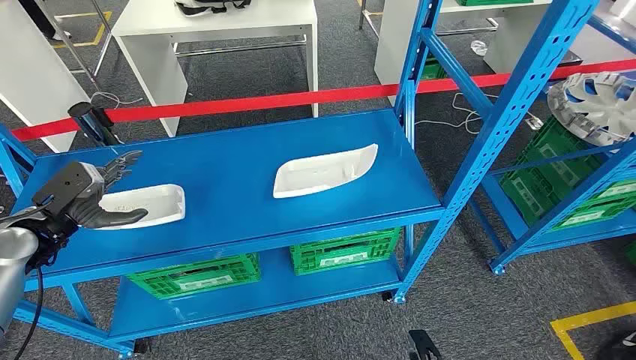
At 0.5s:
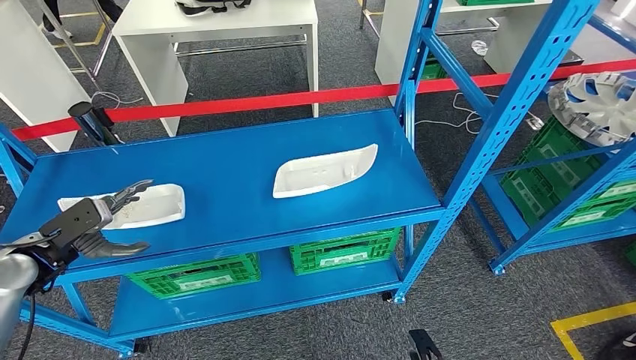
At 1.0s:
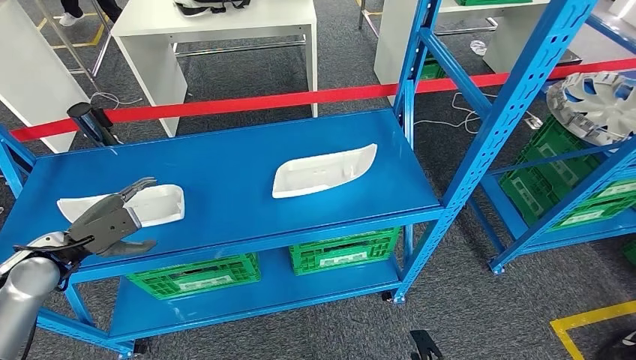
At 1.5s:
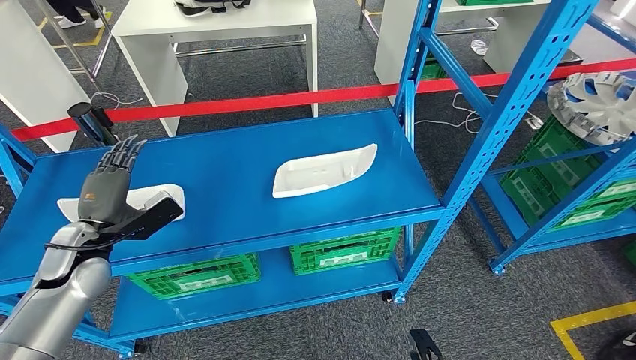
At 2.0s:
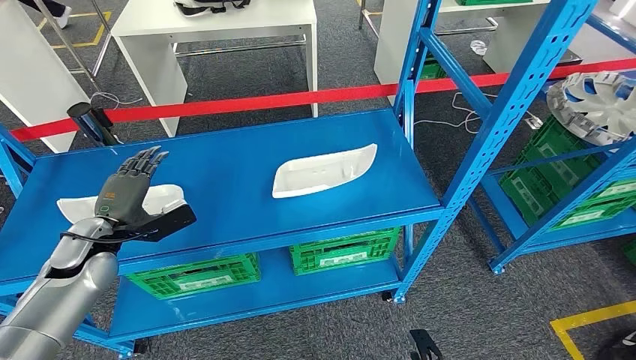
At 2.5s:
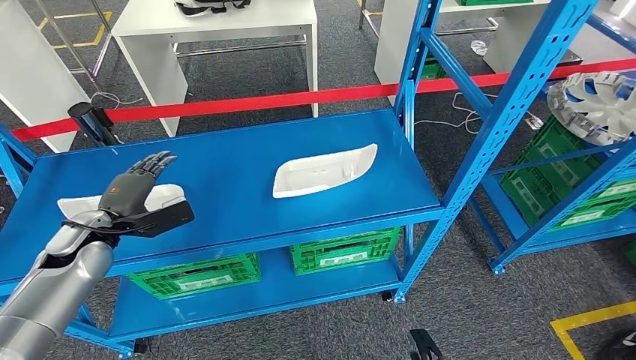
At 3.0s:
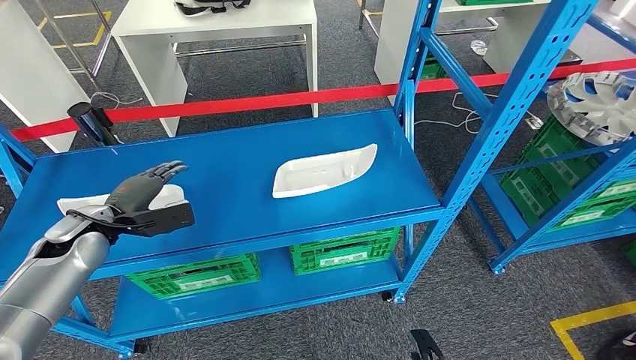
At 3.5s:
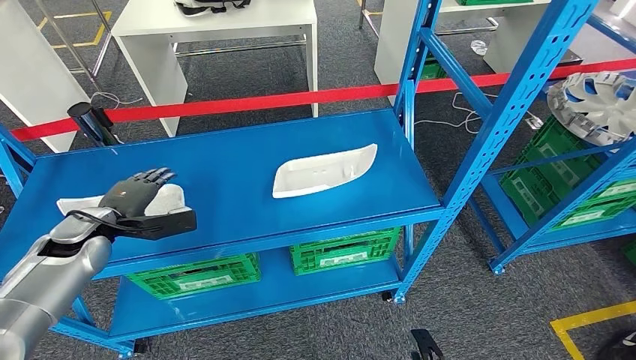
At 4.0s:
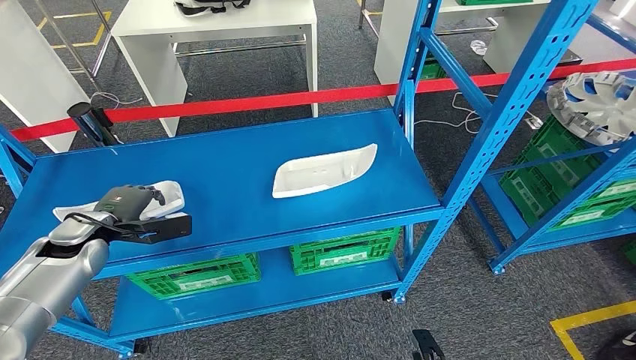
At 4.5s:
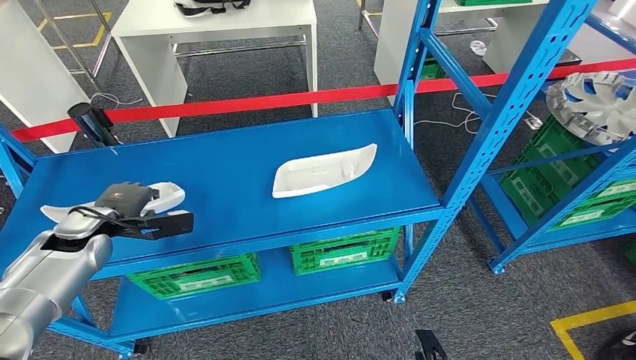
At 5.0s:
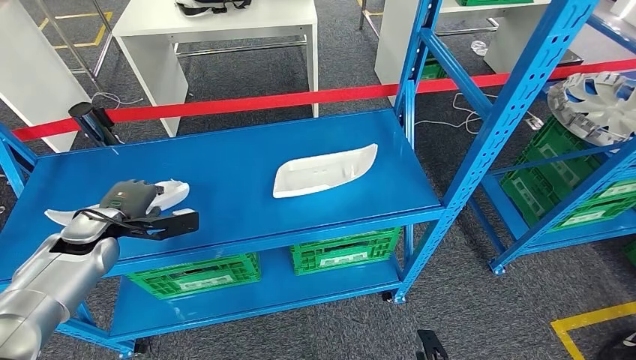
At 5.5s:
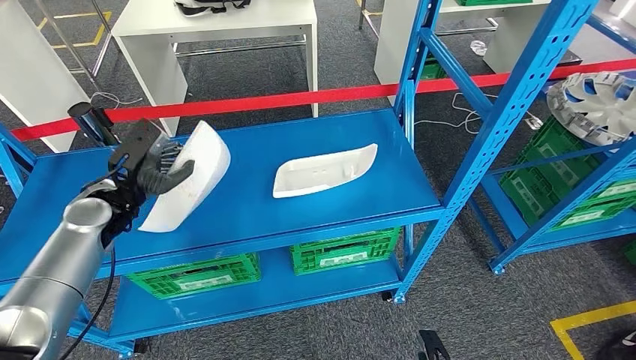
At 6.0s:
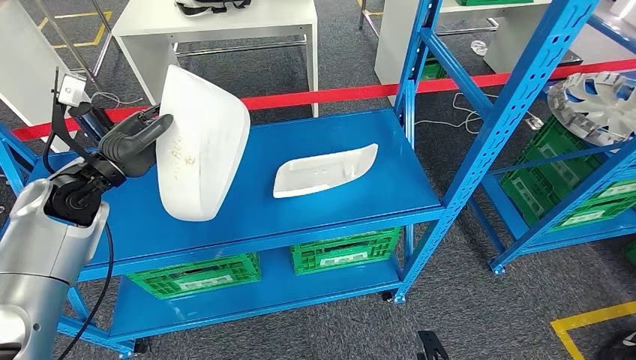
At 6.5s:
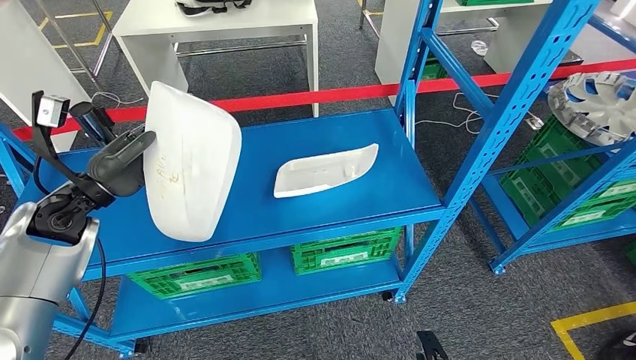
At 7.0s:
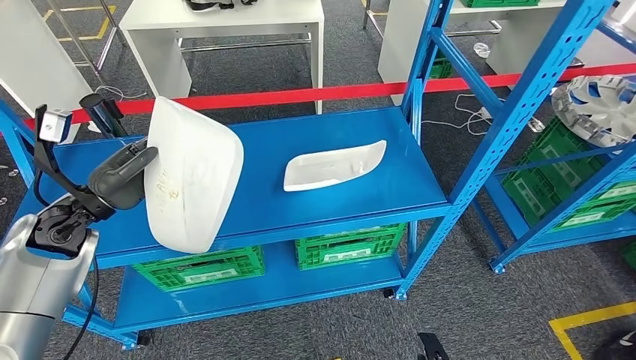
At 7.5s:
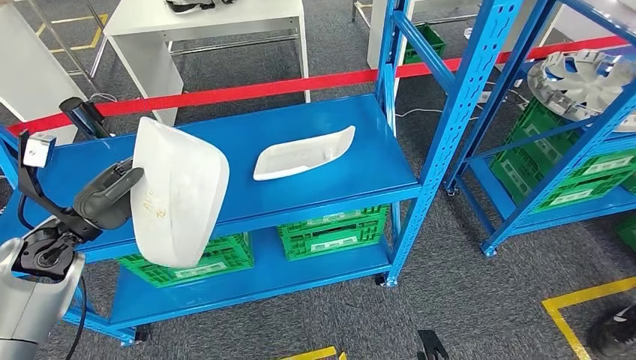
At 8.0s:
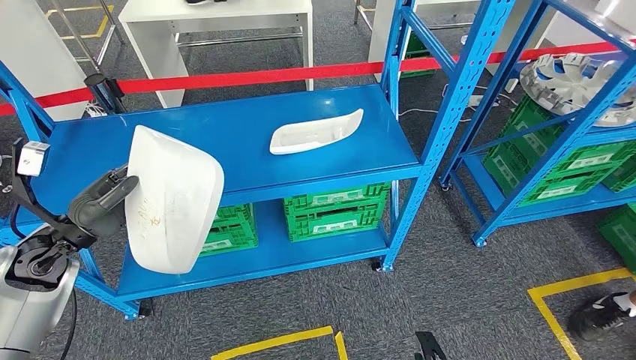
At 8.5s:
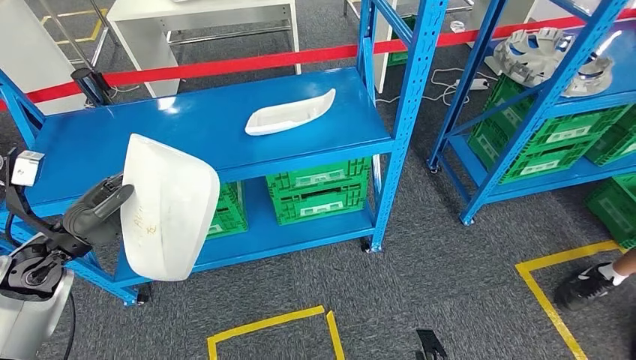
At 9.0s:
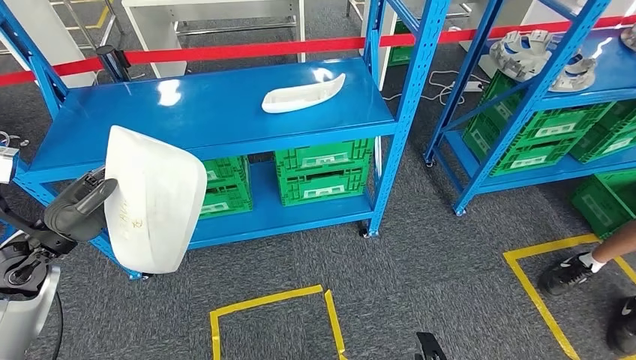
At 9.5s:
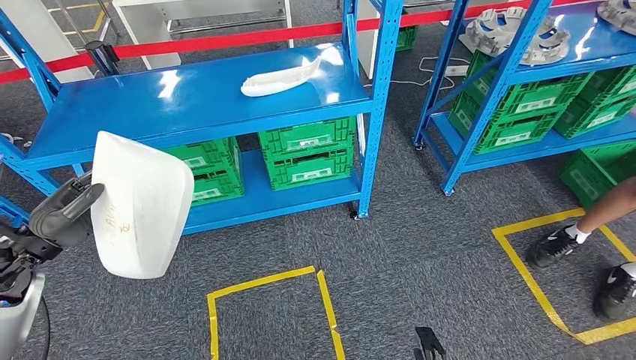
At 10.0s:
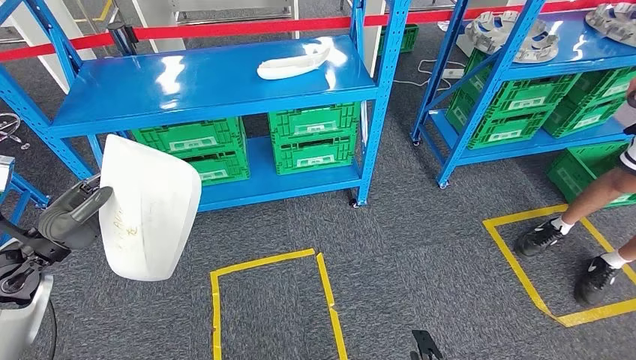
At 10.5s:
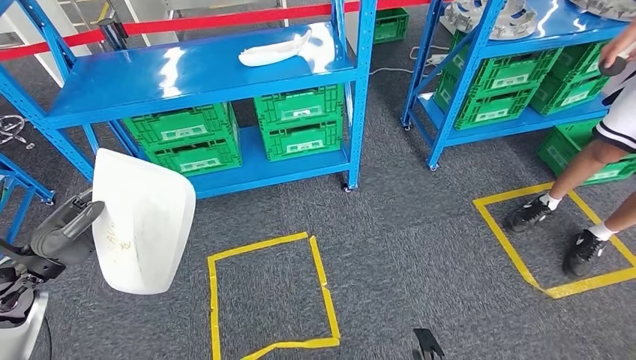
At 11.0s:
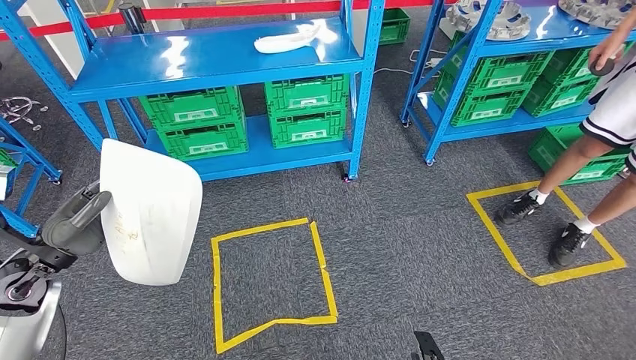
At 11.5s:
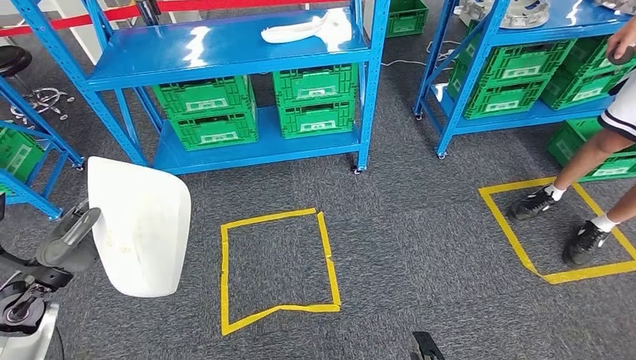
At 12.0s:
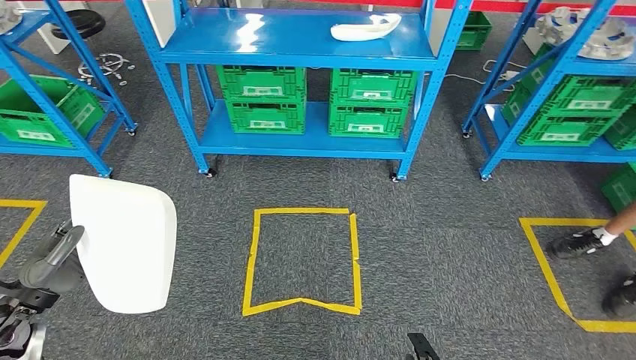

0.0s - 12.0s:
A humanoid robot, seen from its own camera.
Step, 0.0s - 8.0s: Pick up the small component from the shelf.
4.0s - 6.0s: The left hand heads upward and to the right, covering roughly 10 cm.

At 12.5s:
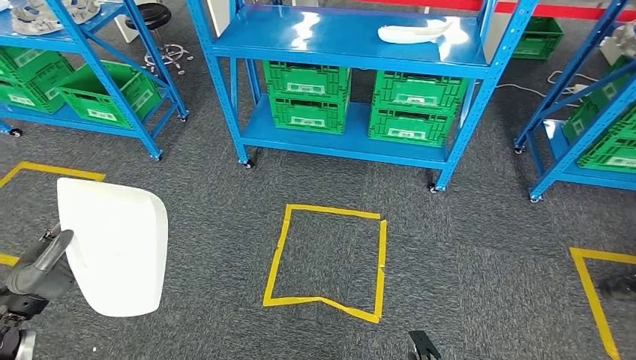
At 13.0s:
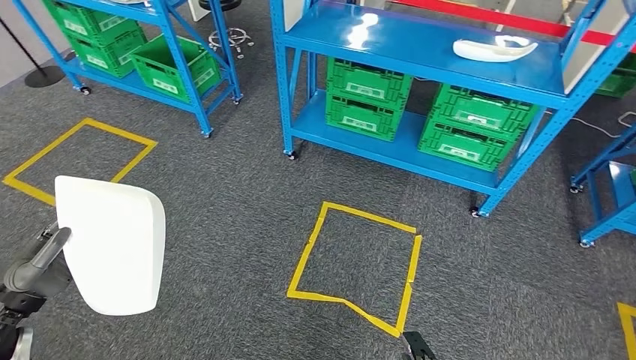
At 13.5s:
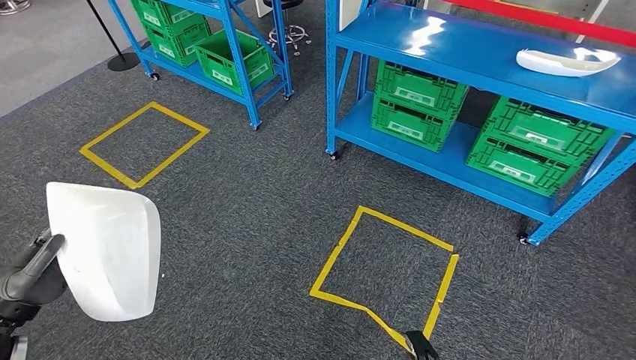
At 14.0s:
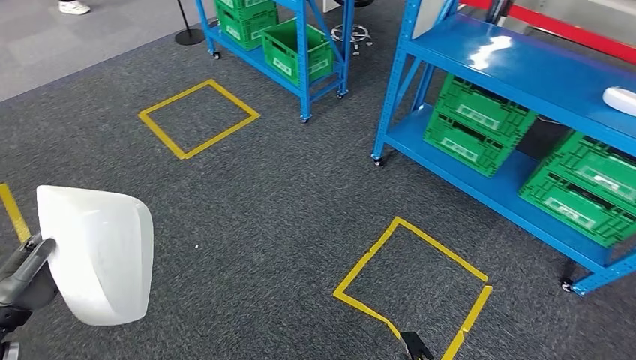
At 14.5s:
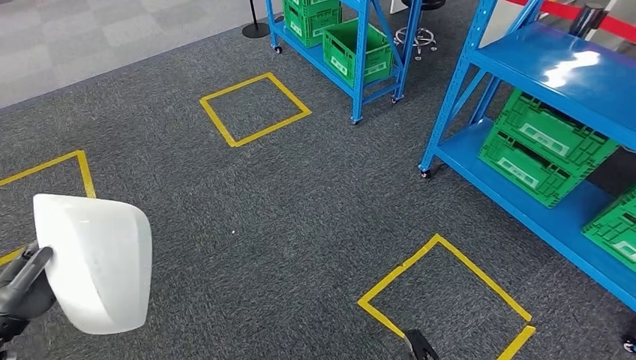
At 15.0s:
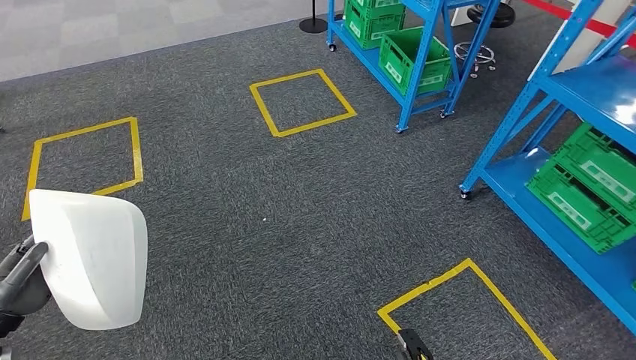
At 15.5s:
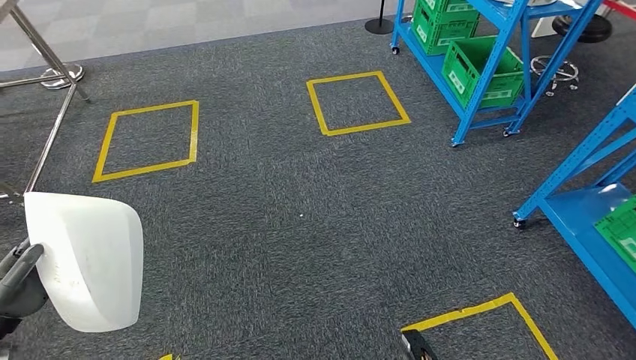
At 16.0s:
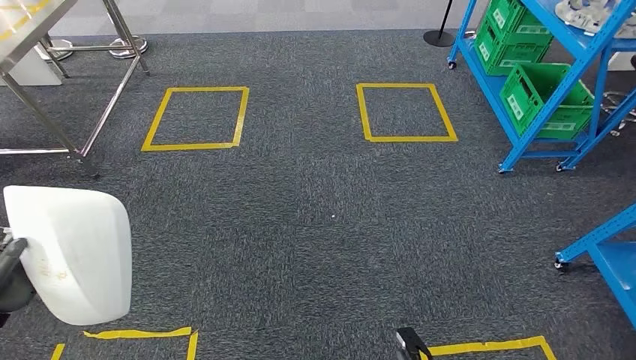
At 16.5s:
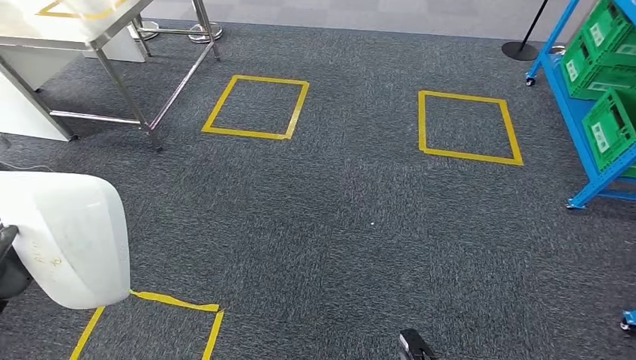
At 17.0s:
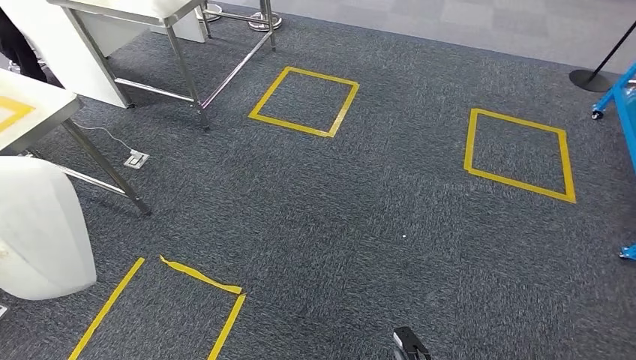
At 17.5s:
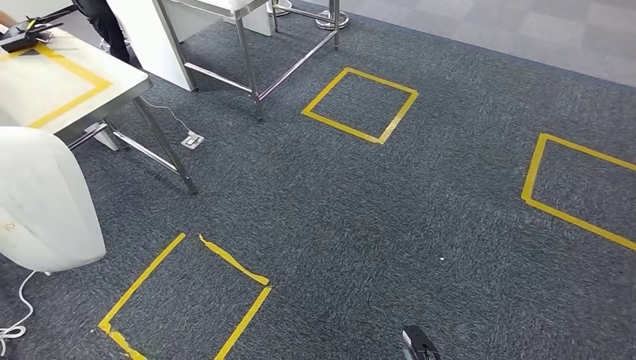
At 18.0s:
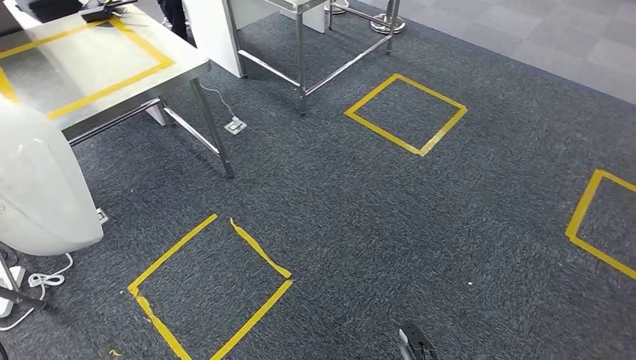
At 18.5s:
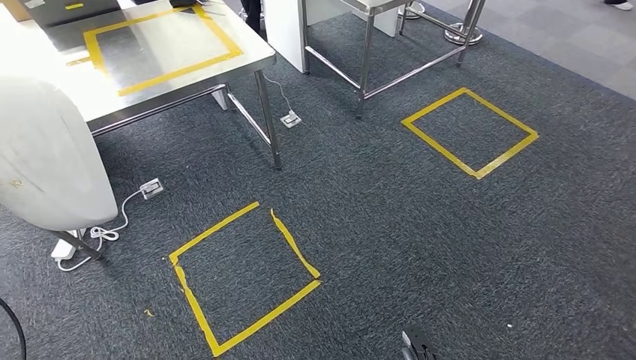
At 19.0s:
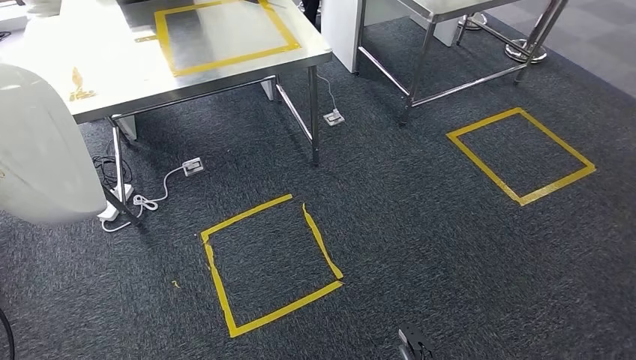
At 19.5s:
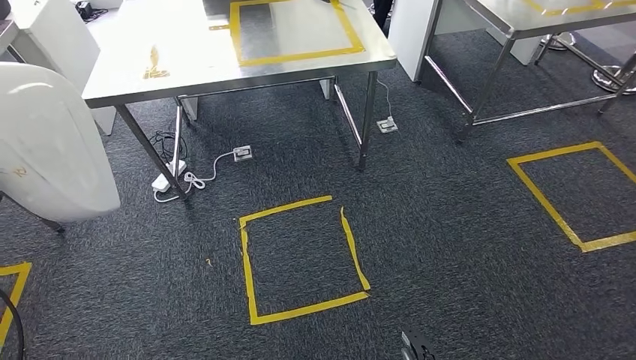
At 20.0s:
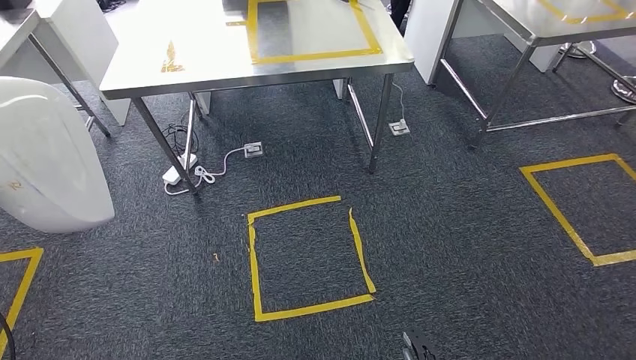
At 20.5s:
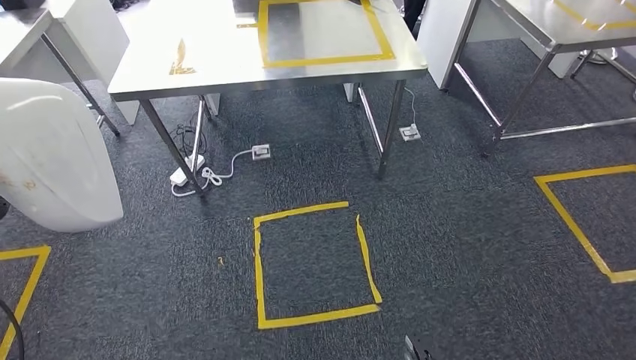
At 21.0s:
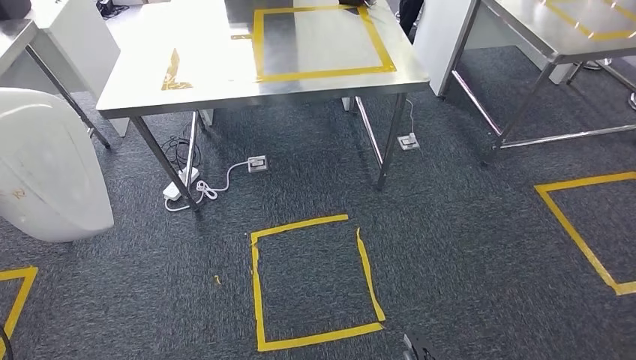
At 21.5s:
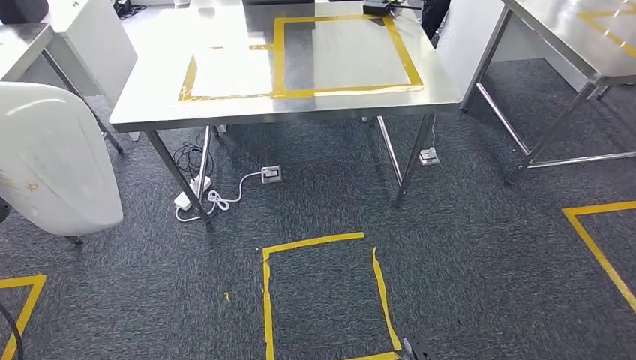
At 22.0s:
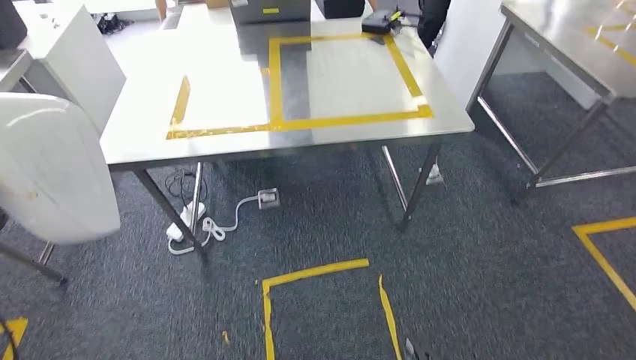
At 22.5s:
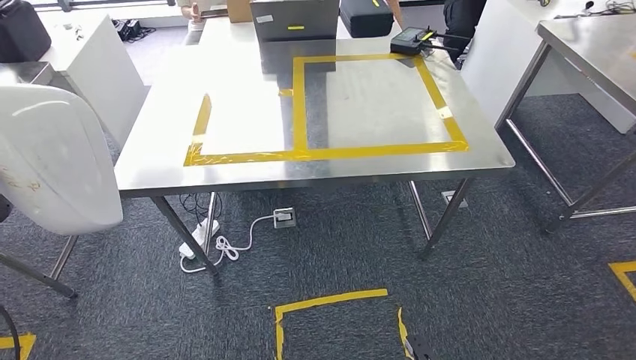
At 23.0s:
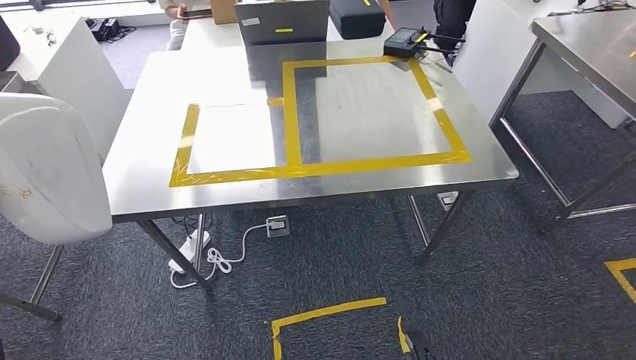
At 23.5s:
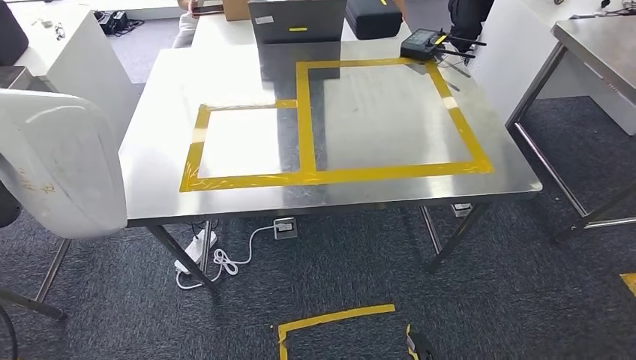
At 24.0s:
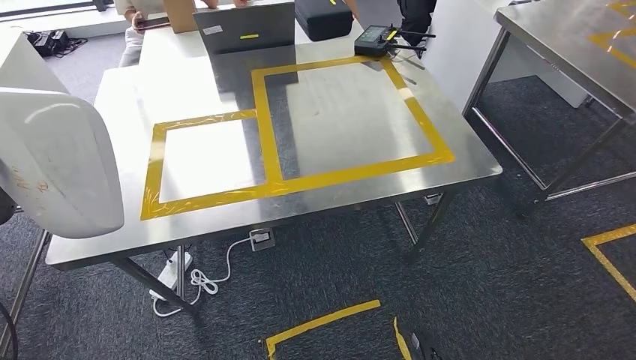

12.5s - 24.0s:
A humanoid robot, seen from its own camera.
Step, 15.5s - 21.5s: Move the small component to the workbench.
